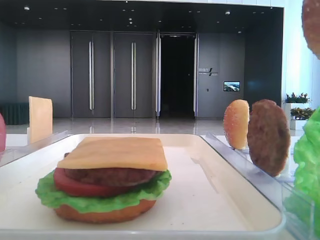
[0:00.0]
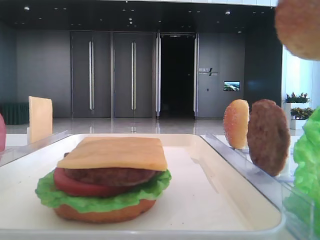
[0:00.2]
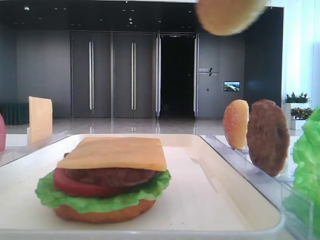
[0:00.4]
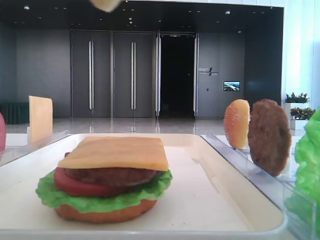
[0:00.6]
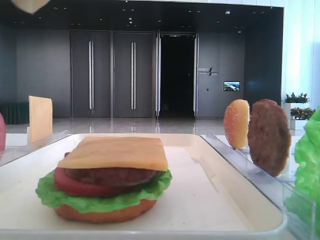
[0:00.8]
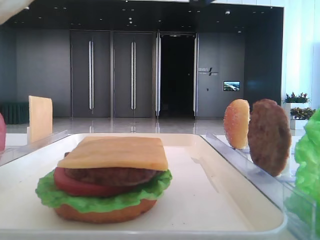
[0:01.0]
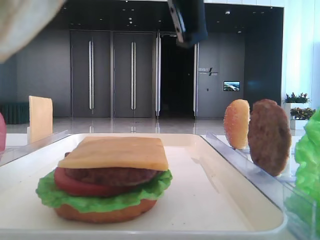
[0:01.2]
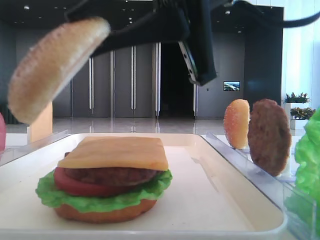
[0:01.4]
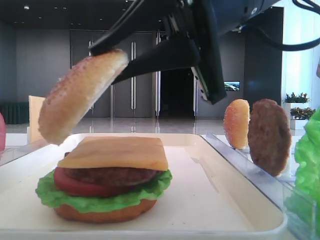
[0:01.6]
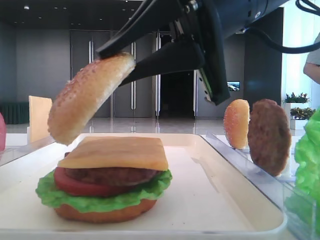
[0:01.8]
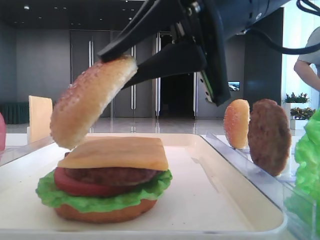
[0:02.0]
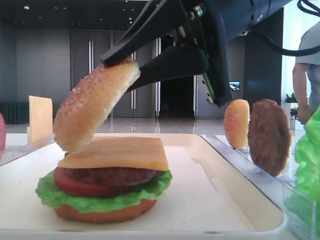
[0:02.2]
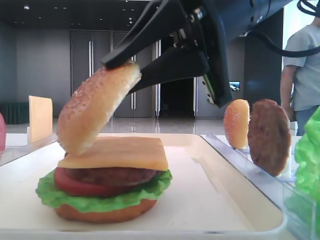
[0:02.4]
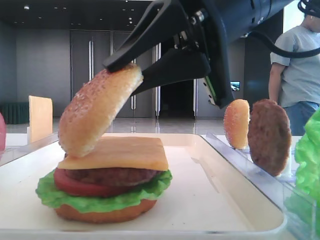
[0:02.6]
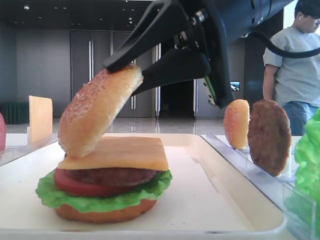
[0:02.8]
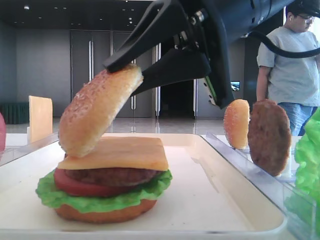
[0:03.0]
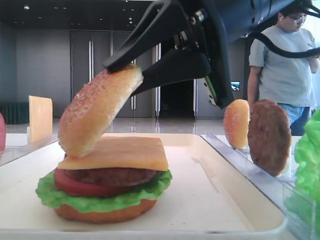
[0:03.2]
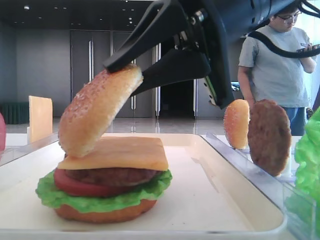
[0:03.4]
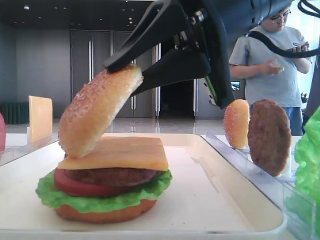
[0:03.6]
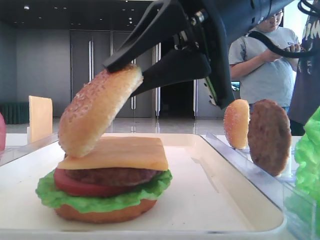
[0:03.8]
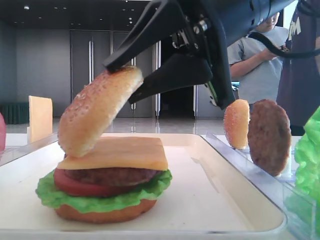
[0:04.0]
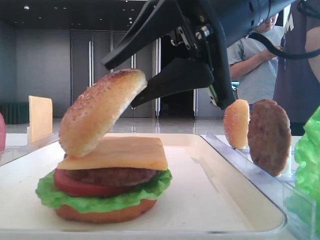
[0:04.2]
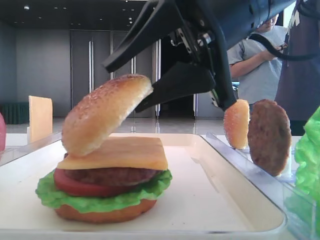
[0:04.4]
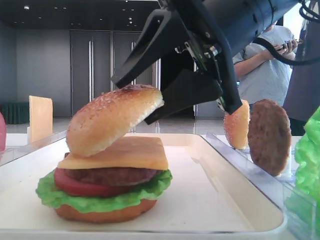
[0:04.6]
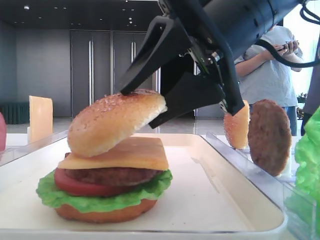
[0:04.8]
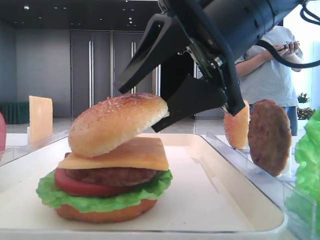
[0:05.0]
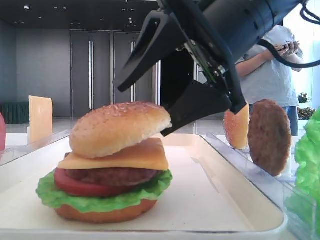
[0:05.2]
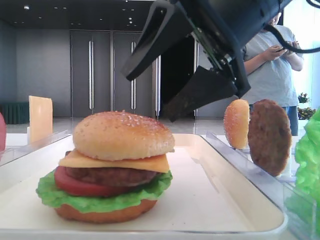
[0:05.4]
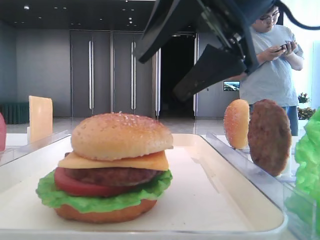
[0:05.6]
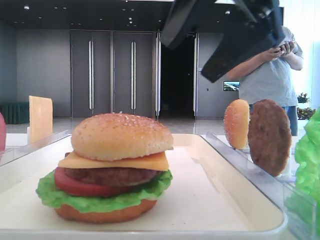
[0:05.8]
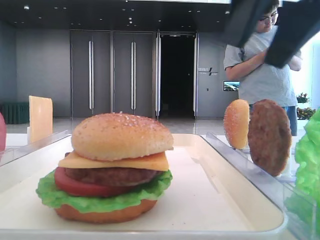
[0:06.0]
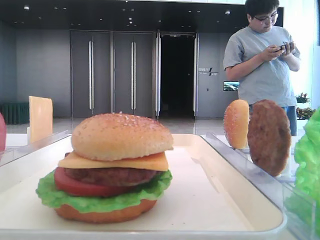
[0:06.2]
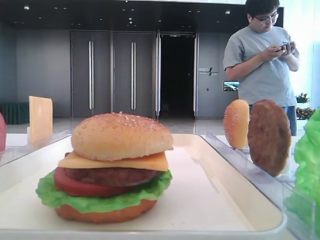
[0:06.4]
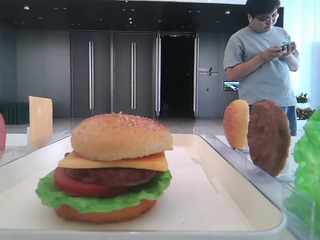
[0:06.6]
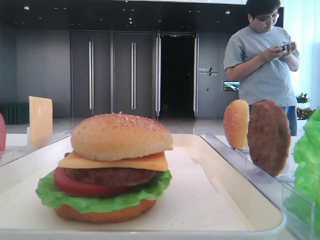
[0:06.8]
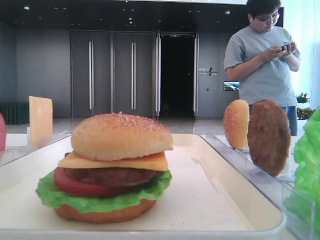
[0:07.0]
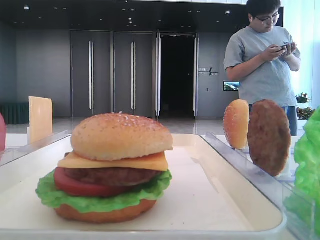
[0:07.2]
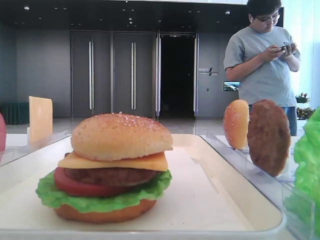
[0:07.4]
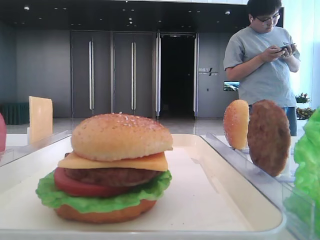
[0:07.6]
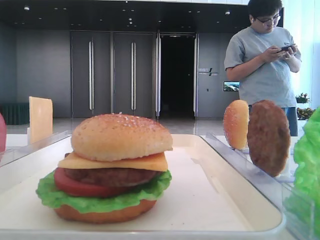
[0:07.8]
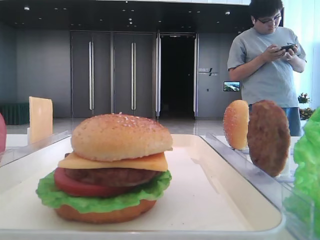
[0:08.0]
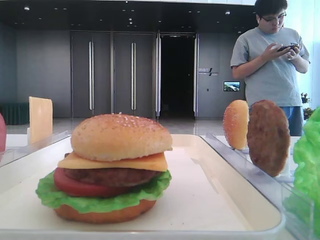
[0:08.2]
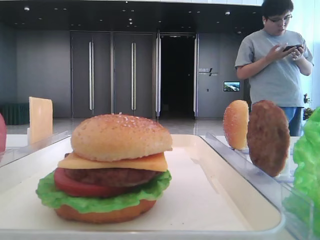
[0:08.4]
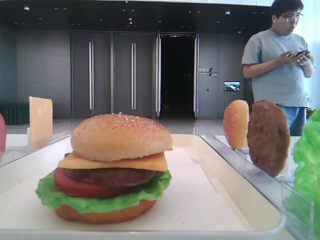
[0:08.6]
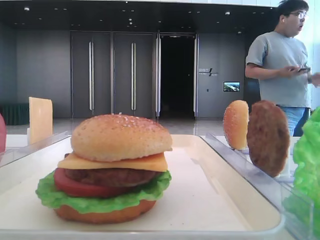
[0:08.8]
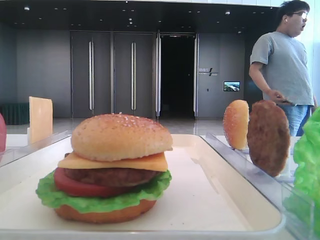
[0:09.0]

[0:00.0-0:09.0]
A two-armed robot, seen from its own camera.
Step, 0:00.0 to 0:05.2: Place the top bread slice on the cheese with the right hand.
0:00.0 to 0:01.6: The right gripper heads downward, forward and to the left, covering about 20 cm.
0:01.6 to 0:03.0: Neither gripper changes place.
0:03.0 to 0:04.4: The right gripper opens.
0:04.4 to 0:06.0: The right gripper travels upward and to the right by roughly 10 cm, and opens up.
0:06.0 to 0:07.6: The right gripper is displaced to the right and backward by about 20 cm, and closes its fingers.
0:07.6 to 0:09.0: The right gripper goes some 15 cm backward.
